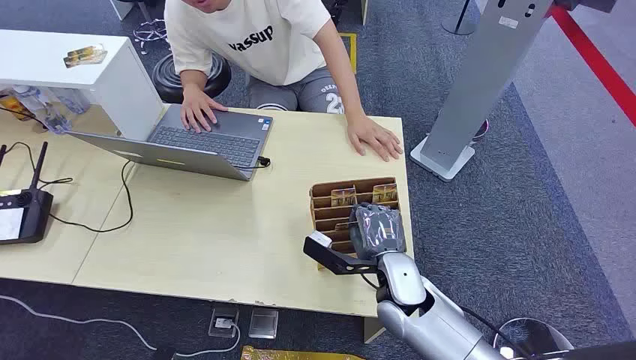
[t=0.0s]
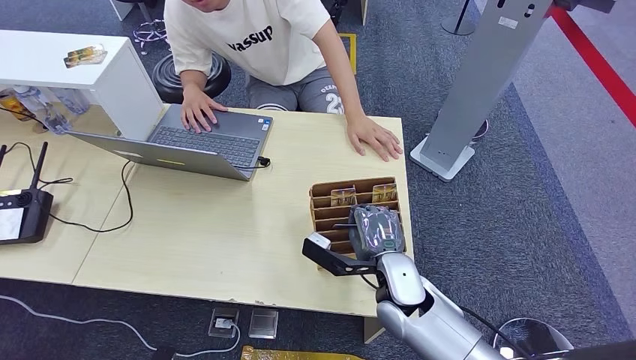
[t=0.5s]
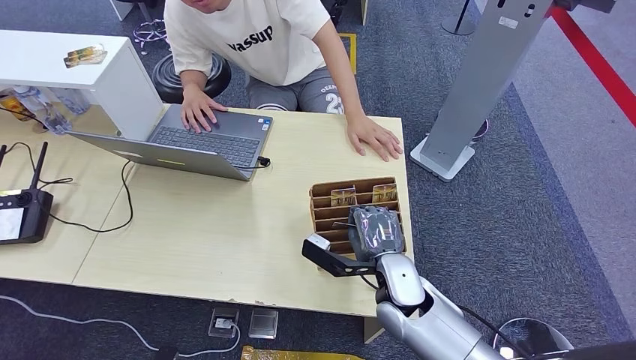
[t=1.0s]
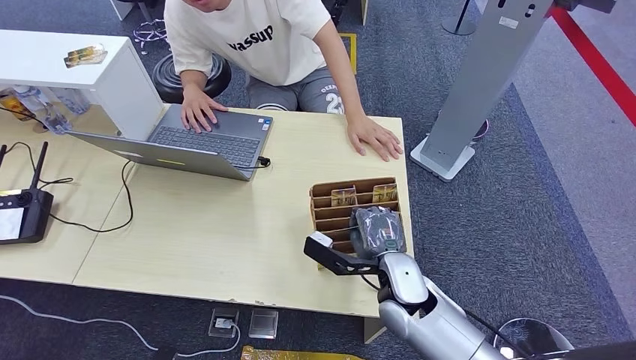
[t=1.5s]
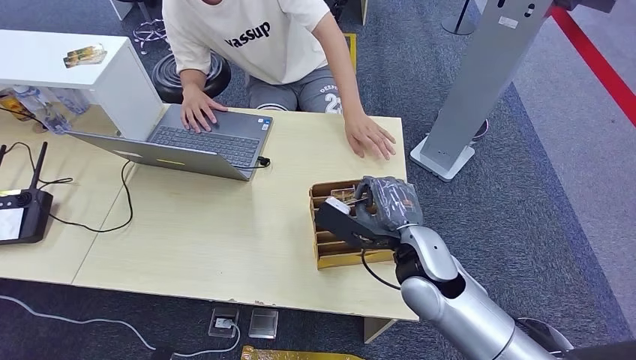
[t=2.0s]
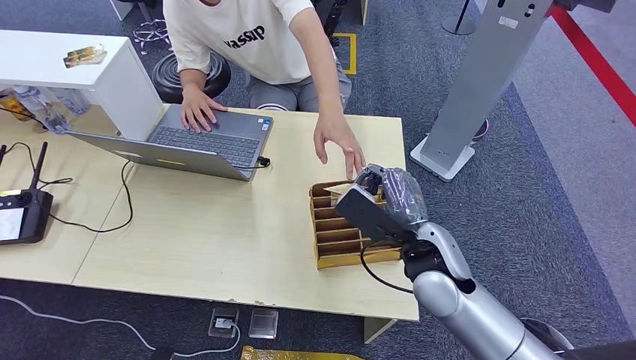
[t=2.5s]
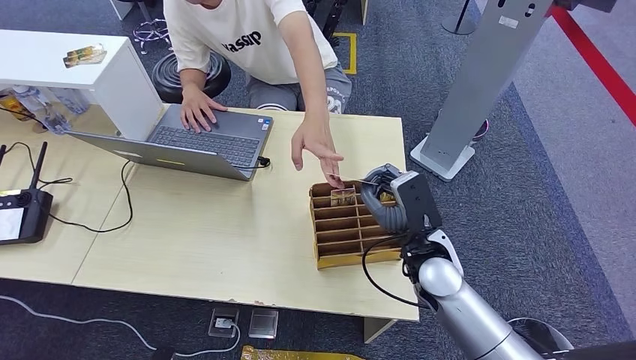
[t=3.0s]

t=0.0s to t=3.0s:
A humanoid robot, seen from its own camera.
Step, t=0.0s to t=1.5s: Pick up the key card from the card box.
Step, t=2.5s to t=3.0s: Hand the key card to the target.
t=1.5s to t=3.0s: The right hand moves about 5 cm.
